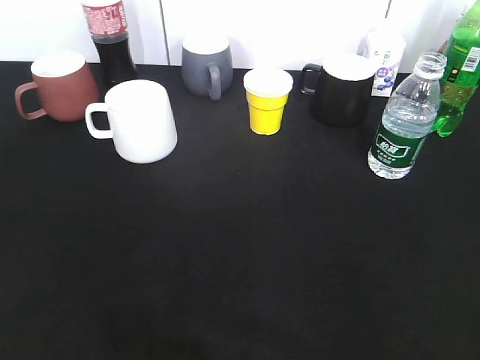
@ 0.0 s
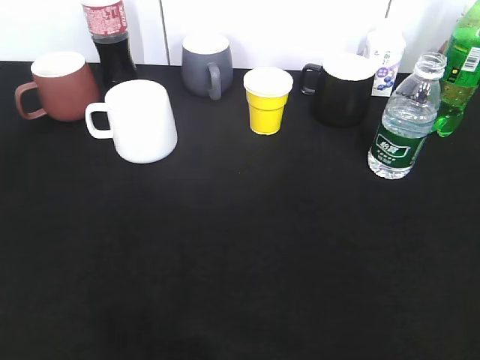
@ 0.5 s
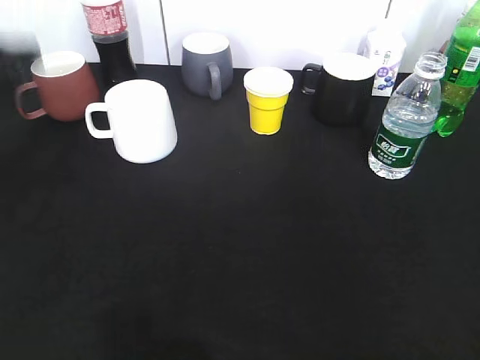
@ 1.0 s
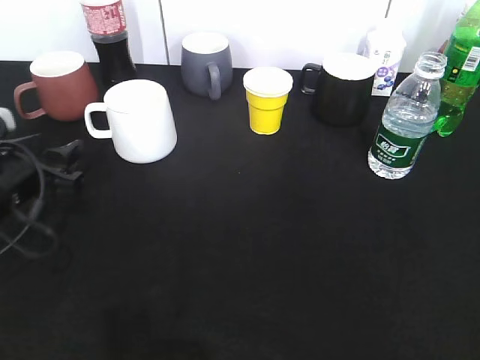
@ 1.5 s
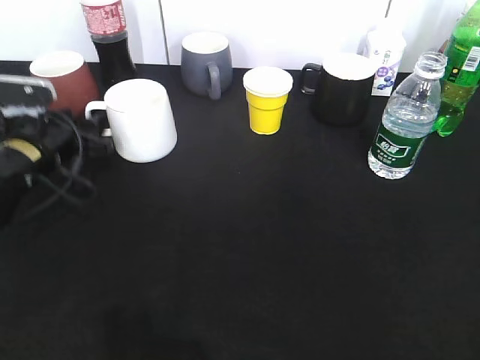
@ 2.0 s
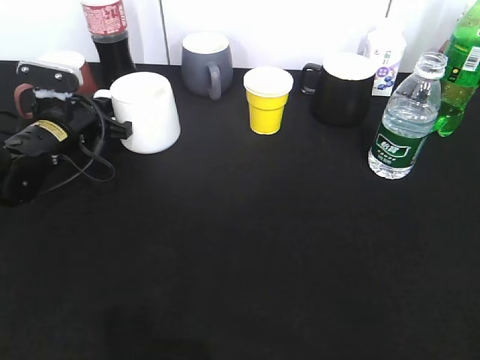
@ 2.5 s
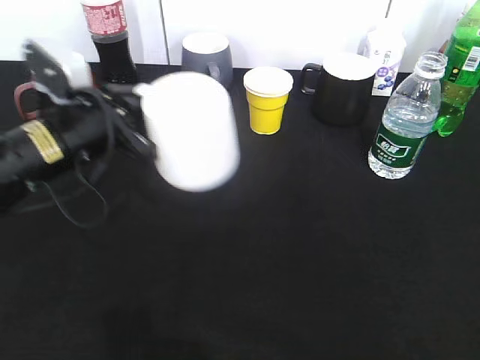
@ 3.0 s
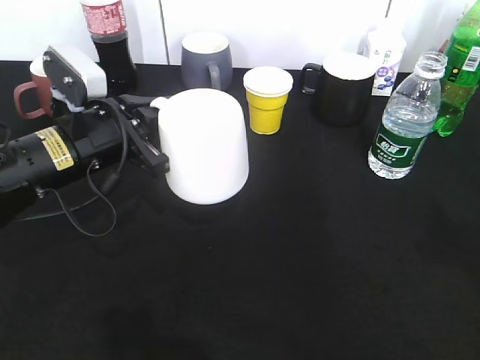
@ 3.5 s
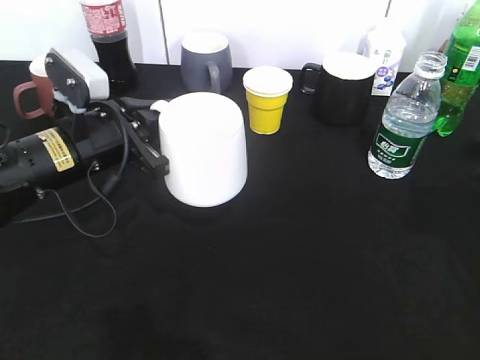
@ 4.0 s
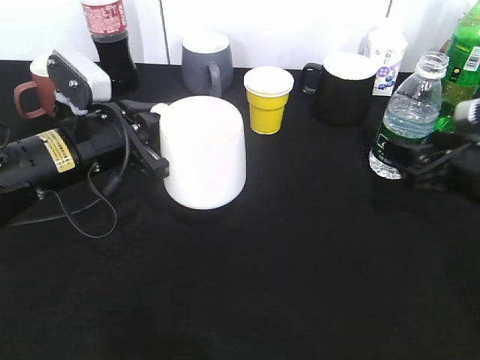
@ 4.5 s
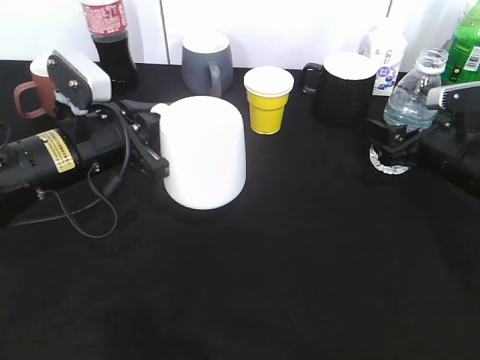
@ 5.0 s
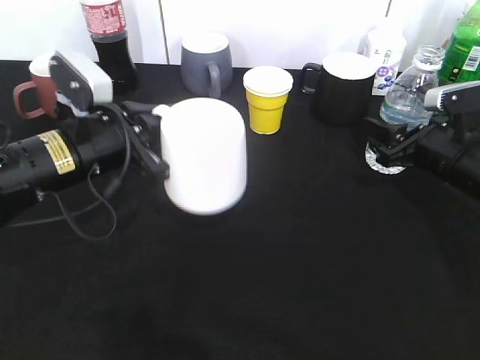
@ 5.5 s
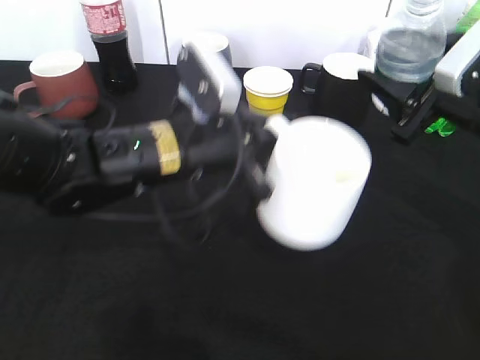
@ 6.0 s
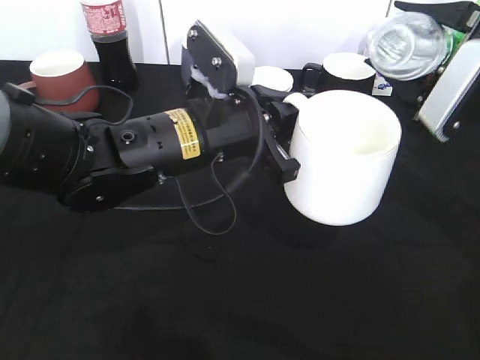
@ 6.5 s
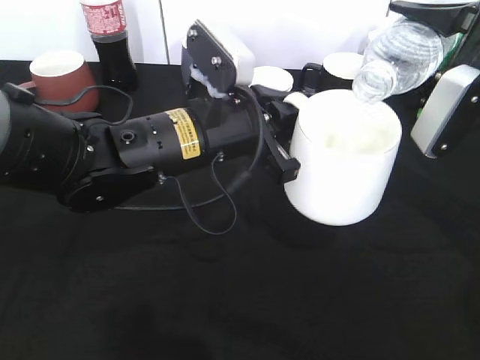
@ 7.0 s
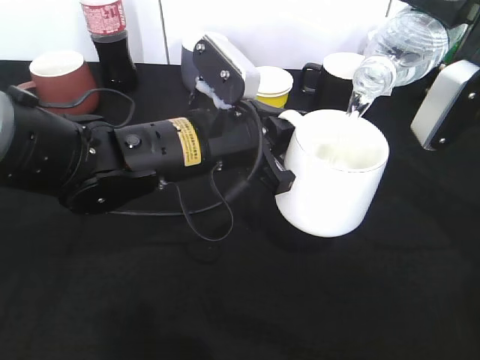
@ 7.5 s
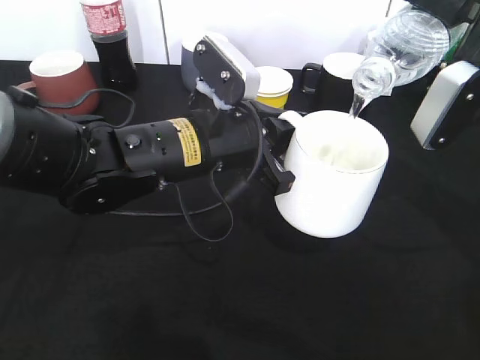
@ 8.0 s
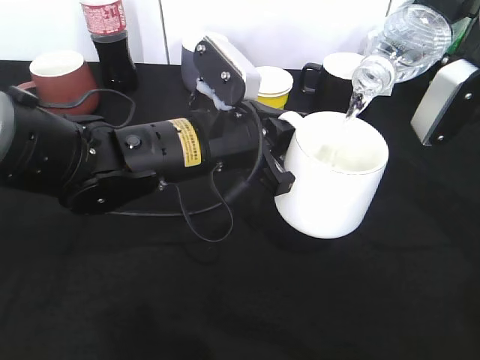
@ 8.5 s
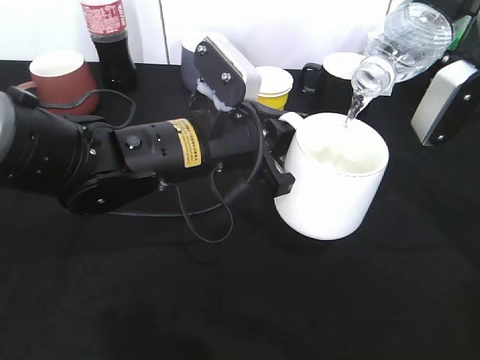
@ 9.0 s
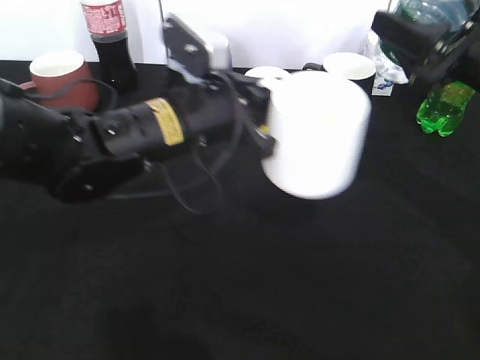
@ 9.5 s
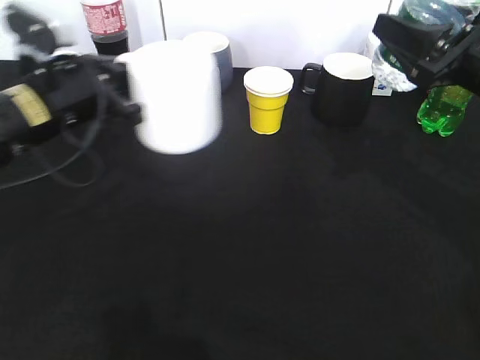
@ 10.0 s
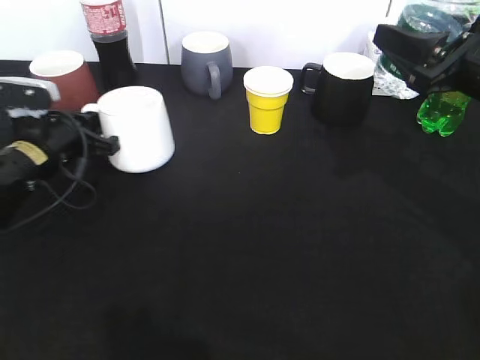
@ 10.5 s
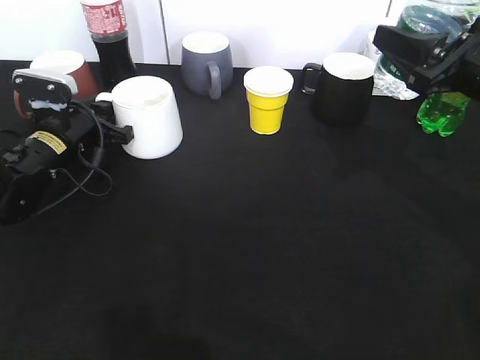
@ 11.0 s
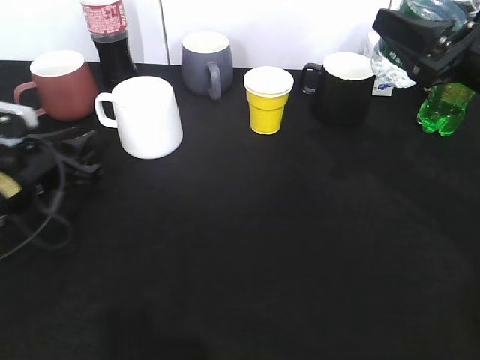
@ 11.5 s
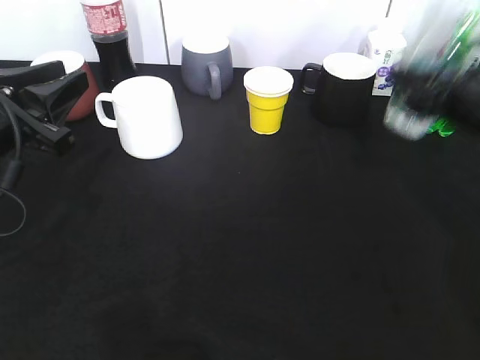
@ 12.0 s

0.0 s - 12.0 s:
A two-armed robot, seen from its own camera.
Step, 0.0 s - 2.0 s: Grasp the white cup with left gripper.
Step, 3.5 s - 5.0 s: Grasp the bottle with water with right gripper.
Step, 5.5 s - 9.5 s: Pour the water from bottle to cup with right gripper.
Step, 10.0 s - 11.0 s: Place the white cup on the table with left gripper.
0.0 s - 2.0 s: The left gripper is displaced forward and downward by approximately 40 cm, and opens.
2.0 s - 4.0 s: The left gripper travels to the right by roughly 10 cm, and closes up; the right gripper heads forward and downward, covering approximately 25 cm.
4.0 s - 6.0 s: The right gripper is displaced forward and to the left by about 10 cm, and closes. Meanwhile the left gripper is displaced to the right by roughly 10 cm.
8.0 s - 10.0 s: The left gripper is displaced to the left by approximately 15 cm.
10.0 s - 12.0 s: The left gripper goes approximately 5 cm backward, and opens up, while the right gripper heads downward, covering about 5 cm.

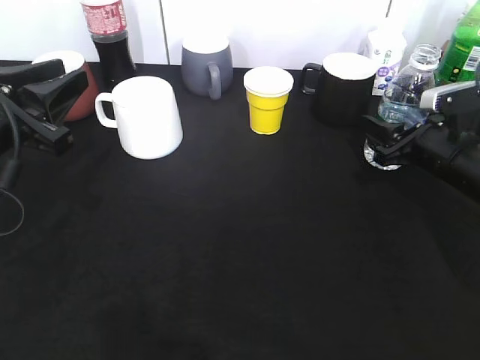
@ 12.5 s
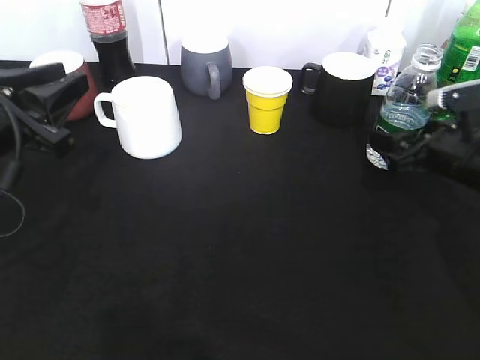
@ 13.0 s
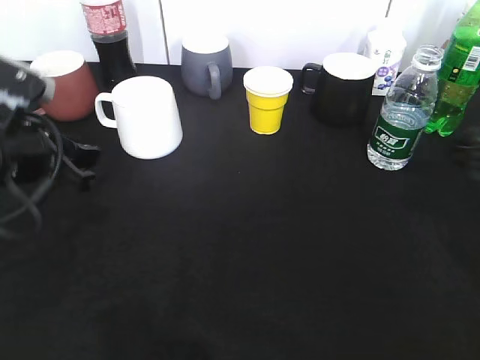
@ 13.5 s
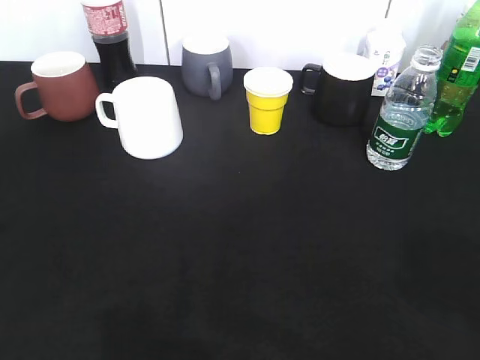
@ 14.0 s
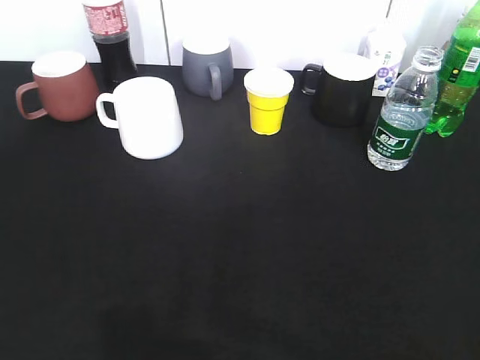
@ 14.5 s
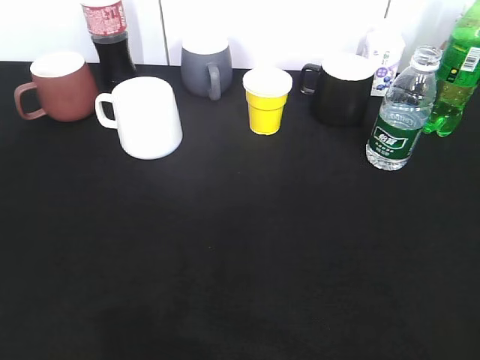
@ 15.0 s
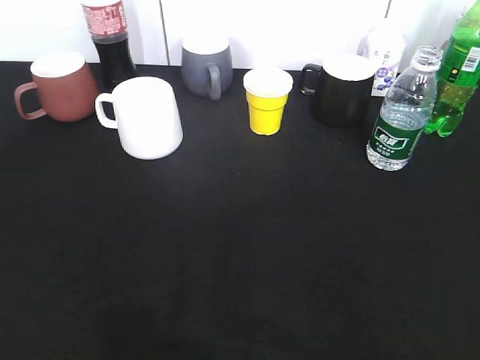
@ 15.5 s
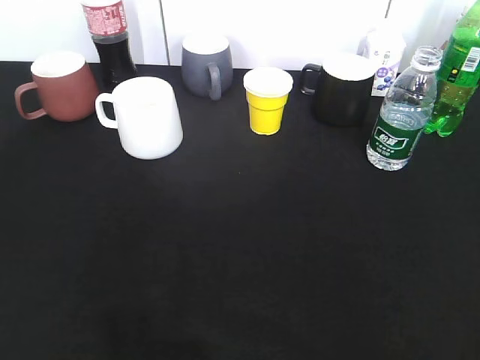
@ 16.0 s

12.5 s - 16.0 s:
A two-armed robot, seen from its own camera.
12.5 s - 14.5 s: The right gripper heads backward and upward, covering approximately 35 cm, and opens. The left gripper travels backward by approximately 25 cm.

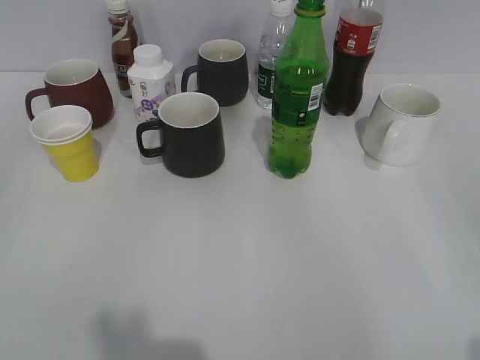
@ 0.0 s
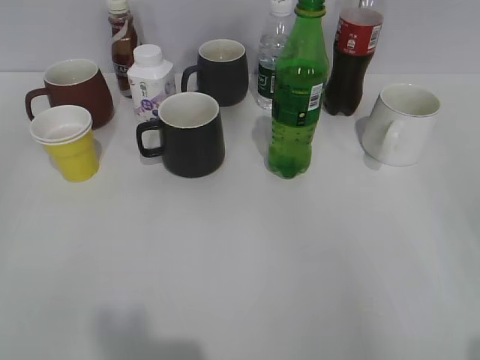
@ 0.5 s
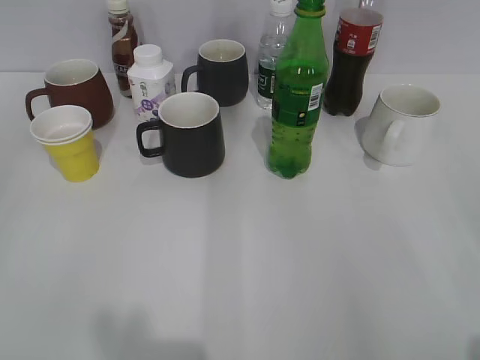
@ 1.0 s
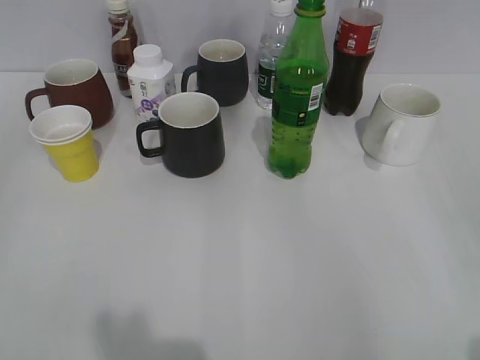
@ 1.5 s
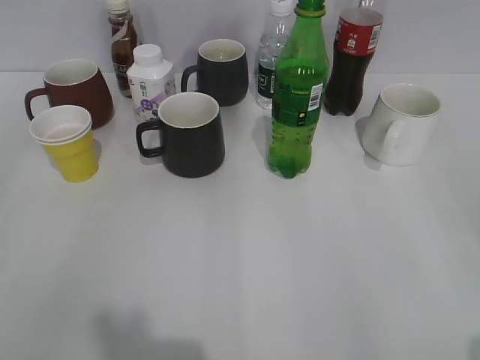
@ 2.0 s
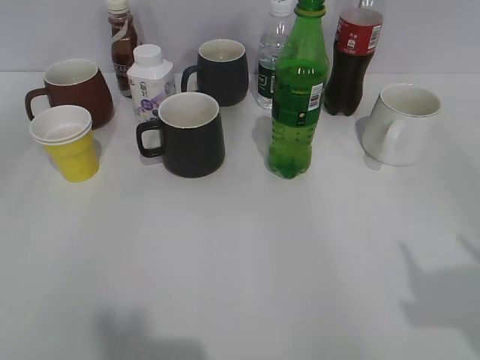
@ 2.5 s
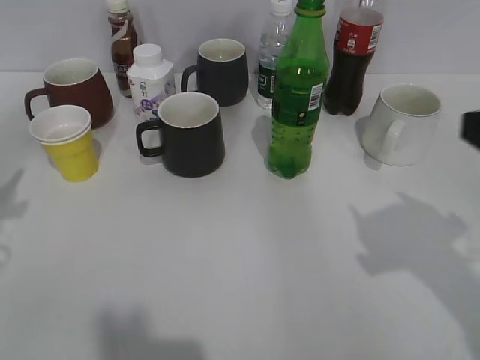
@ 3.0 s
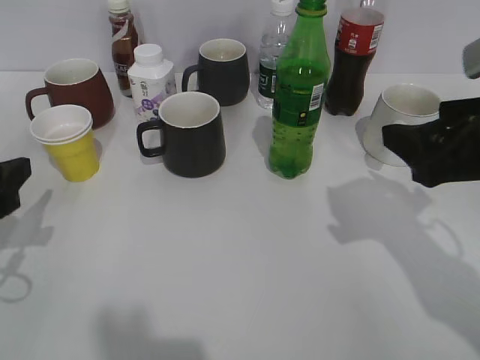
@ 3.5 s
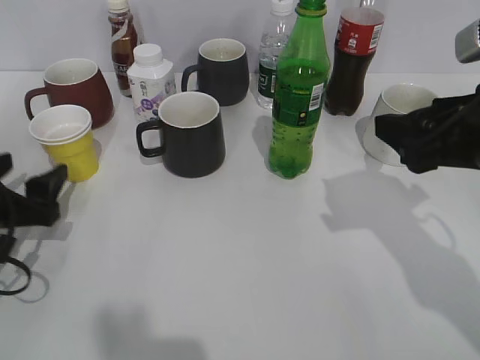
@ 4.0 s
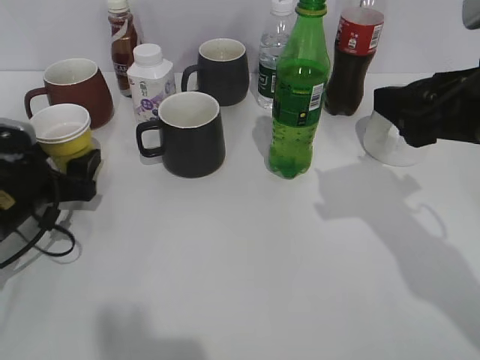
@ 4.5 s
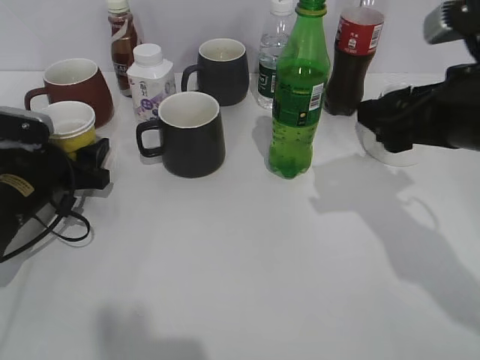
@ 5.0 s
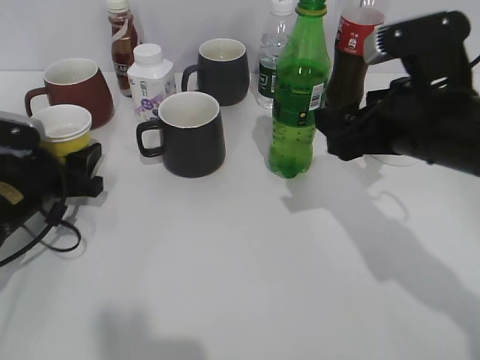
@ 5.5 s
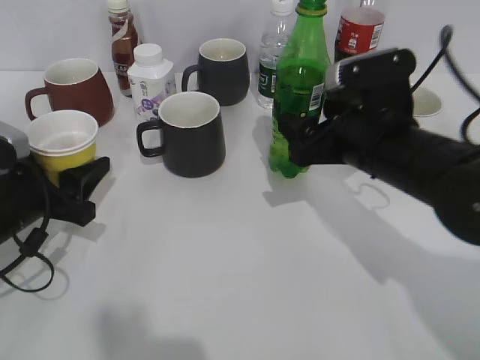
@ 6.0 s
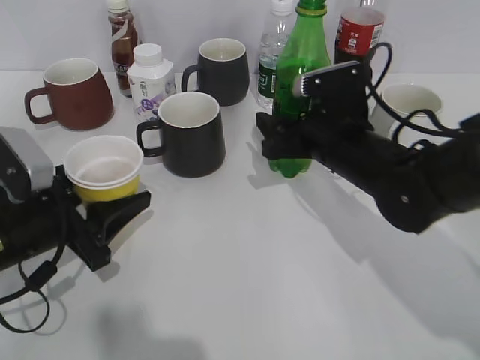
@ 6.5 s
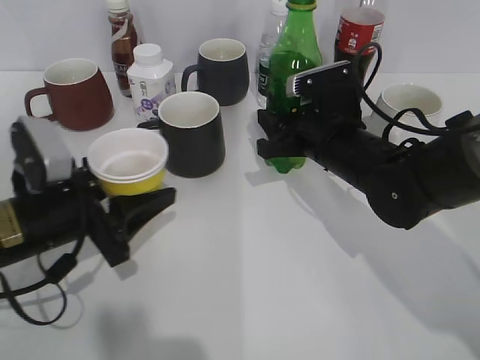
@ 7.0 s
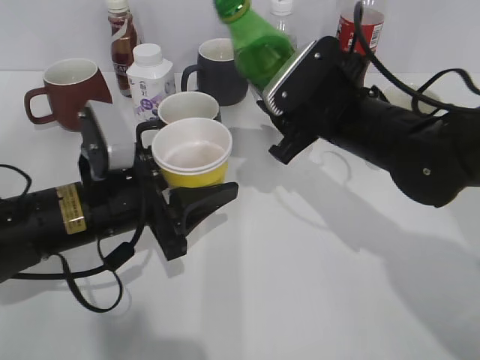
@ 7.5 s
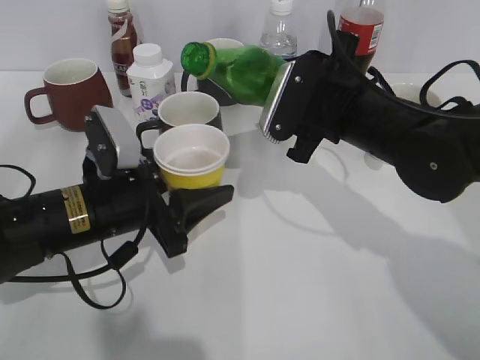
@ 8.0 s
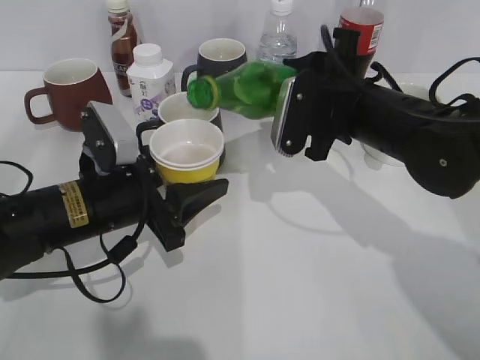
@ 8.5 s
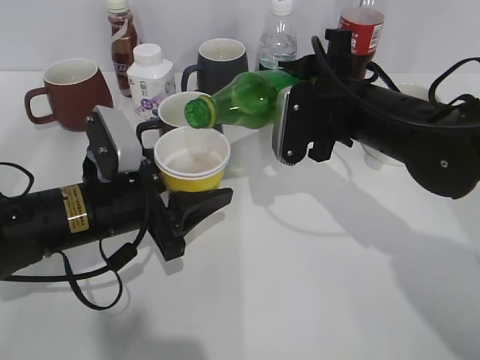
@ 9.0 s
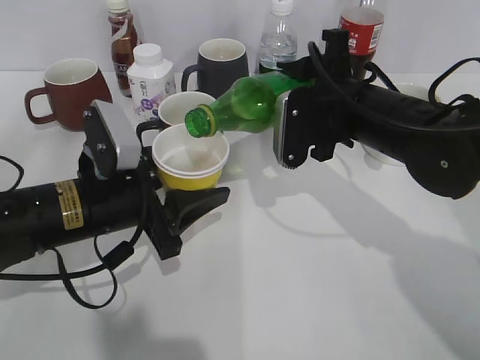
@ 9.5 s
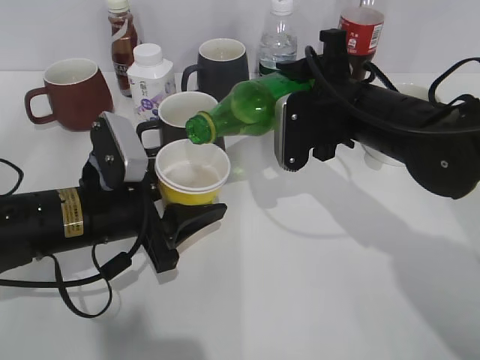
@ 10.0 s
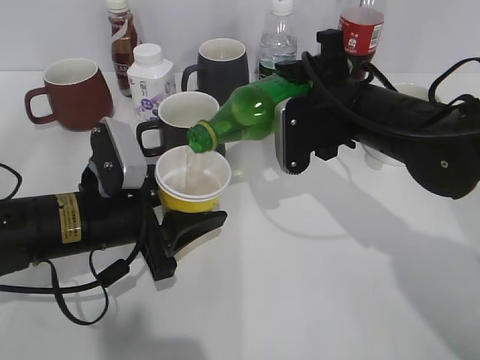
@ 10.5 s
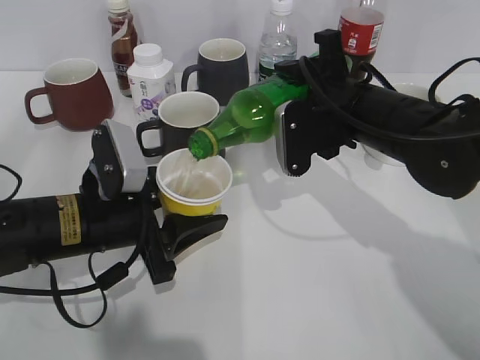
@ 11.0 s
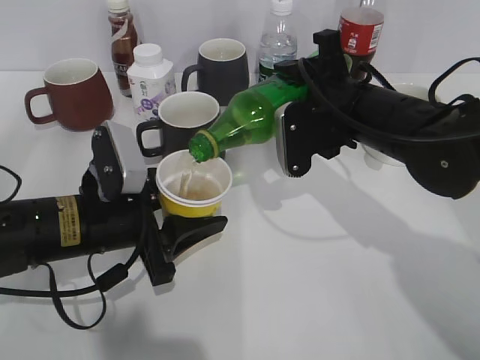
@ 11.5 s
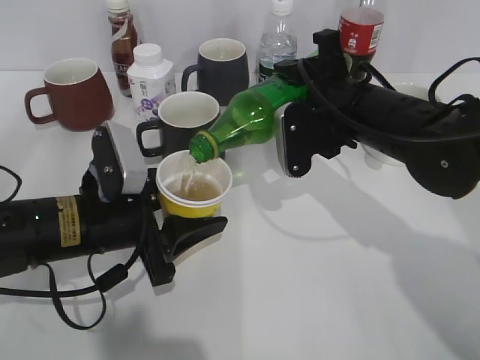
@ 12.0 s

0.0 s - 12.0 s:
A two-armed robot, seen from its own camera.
Step, 2.5 s - 6.5 s: Grasp the bottle with sprite with right gripper.
2.0 s - 4.0 s: The left gripper shifts approximately 25 cm forward and downward, and opens up, while the right gripper is displaced forward and to the left by some 25 cm.
4.0 s - 6.0 s: The left gripper travels forward and back again, about 10 cm each way, and closes its fingers; the right gripper goes some 10 cm to the left, downward and forward.
6.0 s - 8.0 s: The left gripper travels to the right by some 10 cm. Meanwhile the right gripper closes up.
10.0 s - 12.0 s: The grippers make only small movements.
